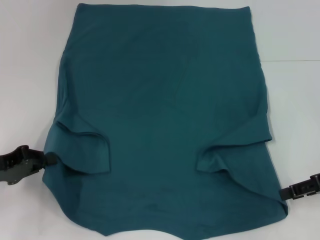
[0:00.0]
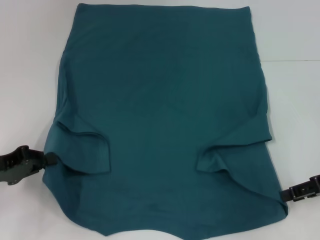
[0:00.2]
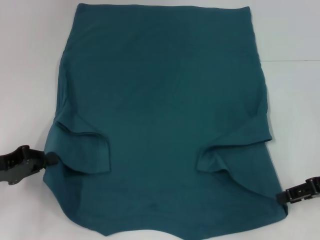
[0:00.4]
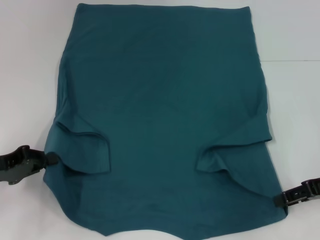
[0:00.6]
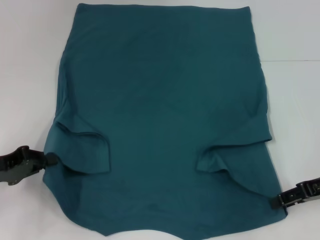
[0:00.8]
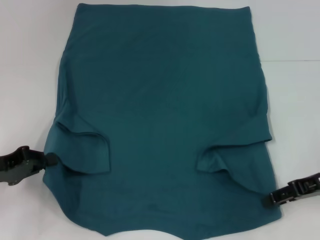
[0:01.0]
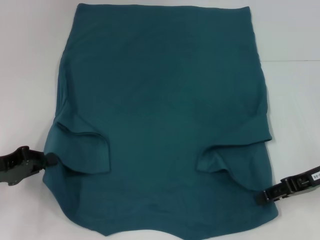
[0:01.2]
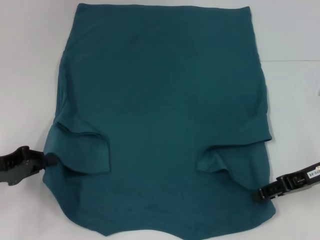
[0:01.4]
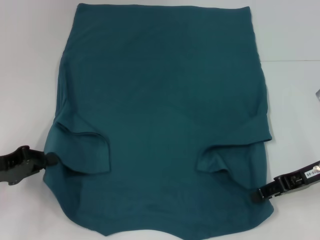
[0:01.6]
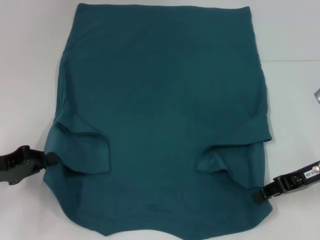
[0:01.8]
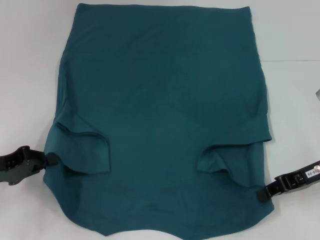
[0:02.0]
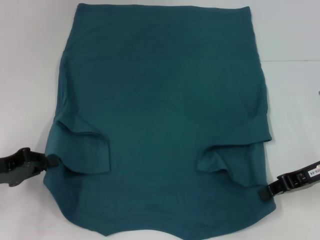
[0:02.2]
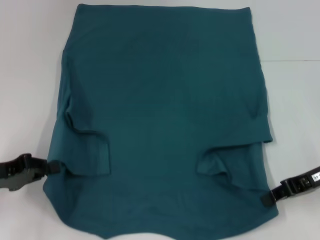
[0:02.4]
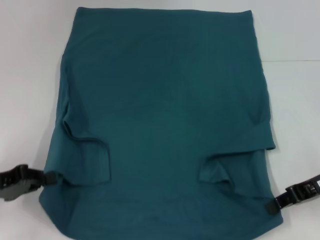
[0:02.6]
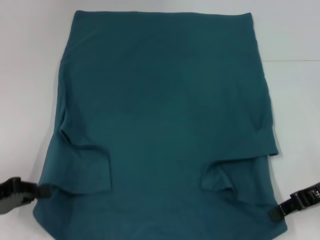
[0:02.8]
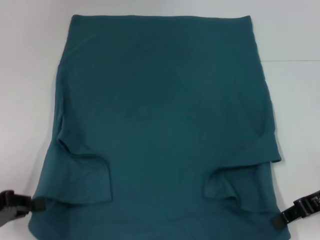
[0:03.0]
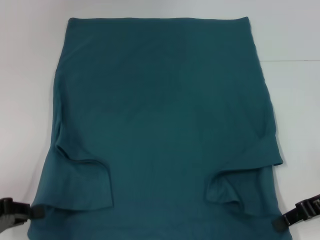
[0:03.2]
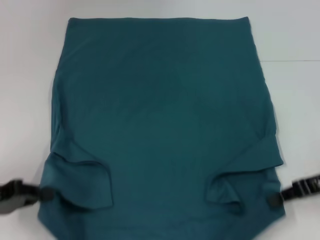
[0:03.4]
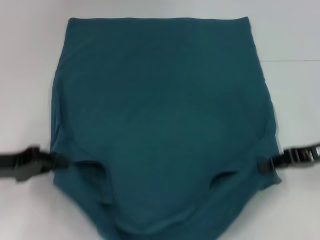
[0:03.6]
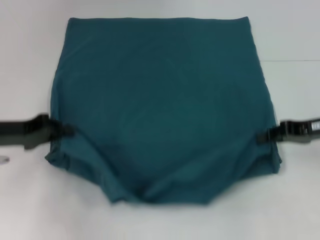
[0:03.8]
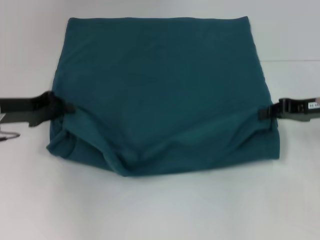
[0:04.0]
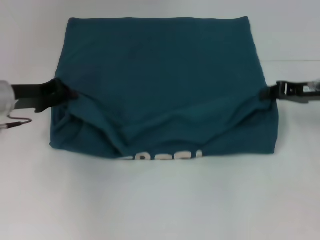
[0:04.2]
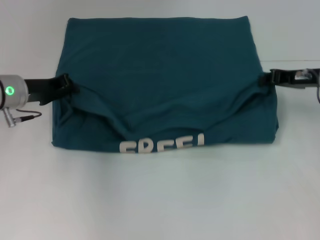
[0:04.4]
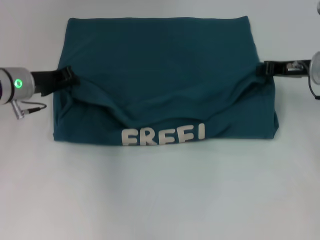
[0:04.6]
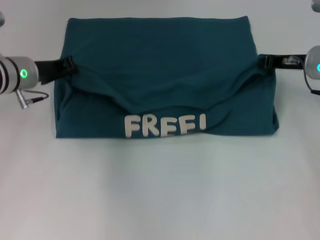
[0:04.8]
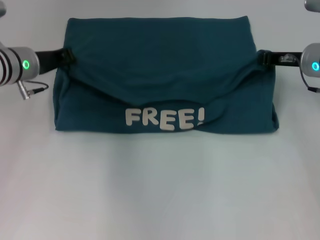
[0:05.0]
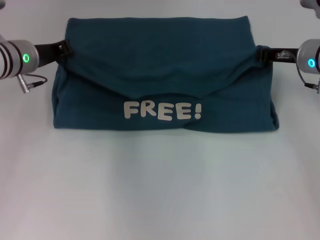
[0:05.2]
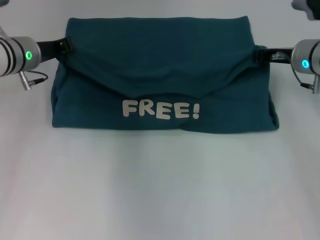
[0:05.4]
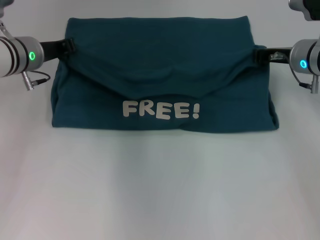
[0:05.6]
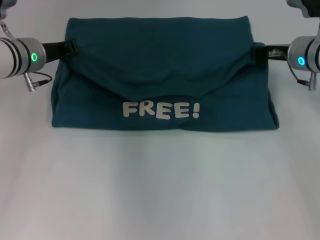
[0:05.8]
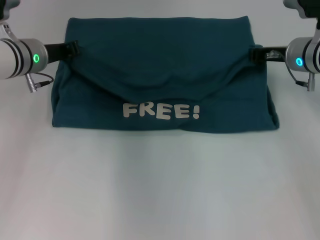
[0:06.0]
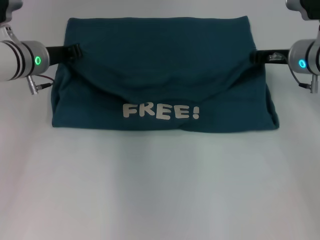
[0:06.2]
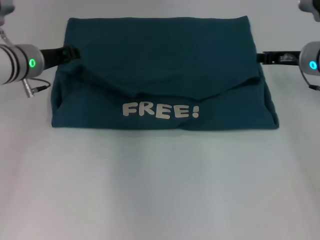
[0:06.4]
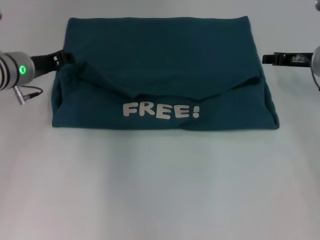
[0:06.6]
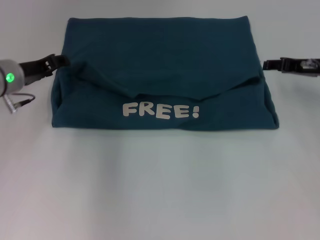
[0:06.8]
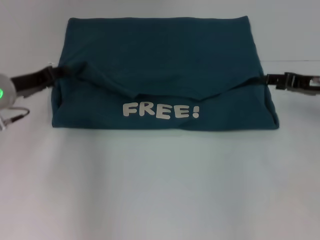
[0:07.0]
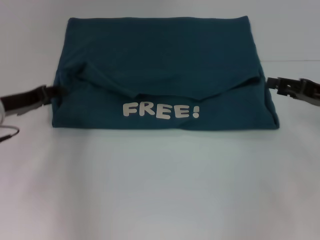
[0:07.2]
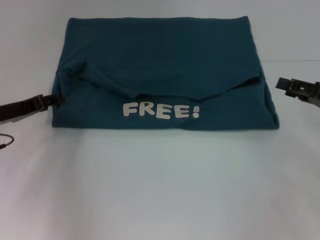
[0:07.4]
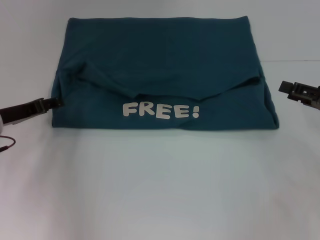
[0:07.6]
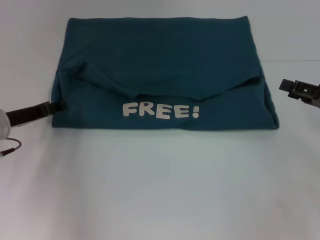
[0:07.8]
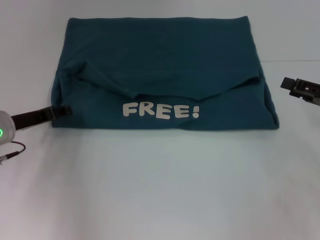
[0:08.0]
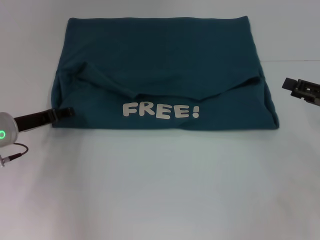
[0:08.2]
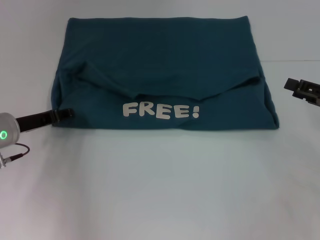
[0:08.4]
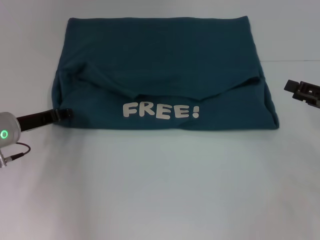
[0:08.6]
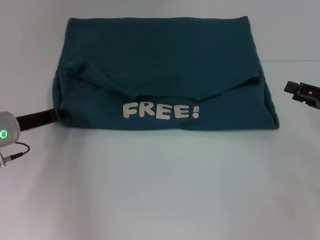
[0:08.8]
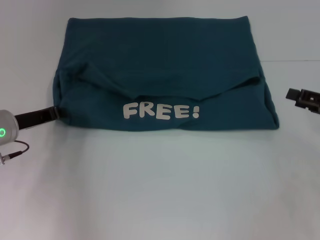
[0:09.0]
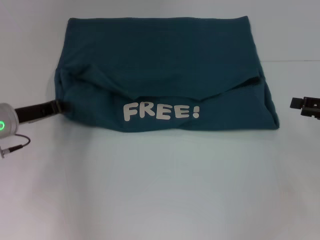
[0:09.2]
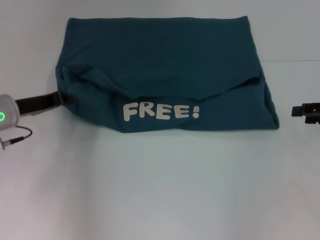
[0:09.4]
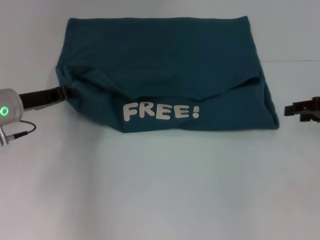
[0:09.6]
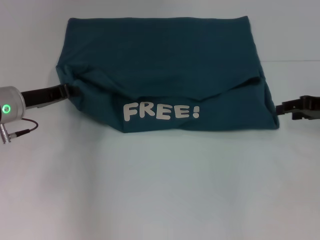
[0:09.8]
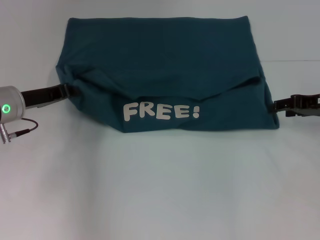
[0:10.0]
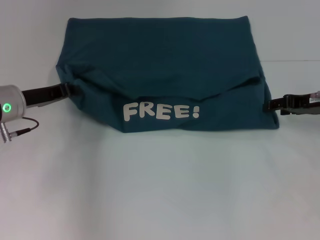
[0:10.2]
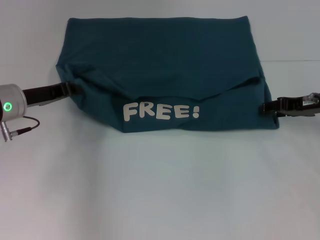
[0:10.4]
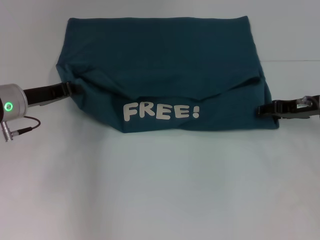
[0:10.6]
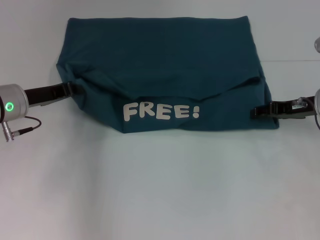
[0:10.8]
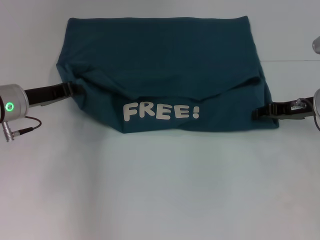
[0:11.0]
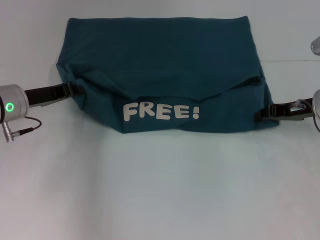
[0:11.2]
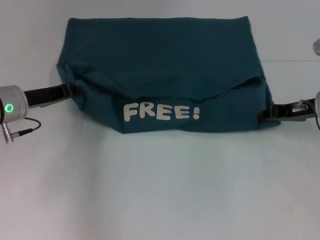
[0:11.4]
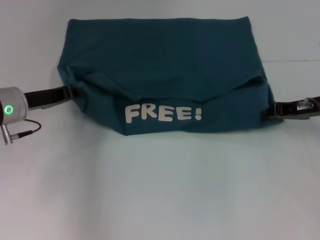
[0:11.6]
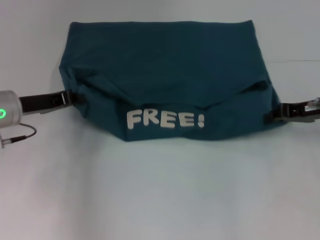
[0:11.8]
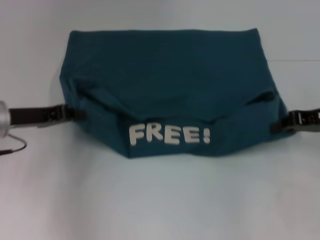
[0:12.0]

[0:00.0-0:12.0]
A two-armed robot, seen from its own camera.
Step, 0.0 to 2.4 s: Grab the bottom right corner with your right hand.
Step, 2.6 to 6.6 s: Fold the clothes to the left.
Step, 2.6 to 6.6 s: Fold the clothes to the right.
0.0 to 1.6 s: The right gripper shifts roughly 5 cm to the left.
1.6 to 3.0 s: The left gripper travels backward by roughly 5 cm. The right gripper closes up.
3.0 to 4.4 s: The right gripper travels forward by about 10 cm. Meanwhile the left gripper shifts roughly 20 cm forward and to the right.
4.4 to 6.0 s: The left gripper moves roughly 5 cm, while the right gripper shifts roughly 5 cm to the left.
6.0 to 7.6 s: The left gripper heads backward, to the left and downward, covering approximately 15 cm, and opens; the right gripper shifts approximately 20 cm backward and to the right, and opens its fingers.
7.6 to 9.0 s: The left gripper closes up.
9.0 to 10.4 s: The right gripper goes roughly 10 cm forward and to the left.
10.4 to 12.0 s: The right gripper closes.

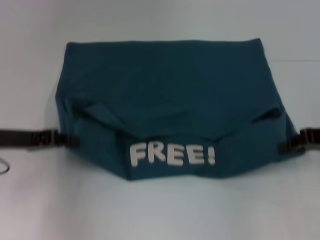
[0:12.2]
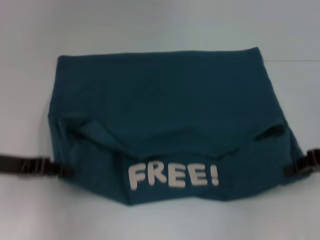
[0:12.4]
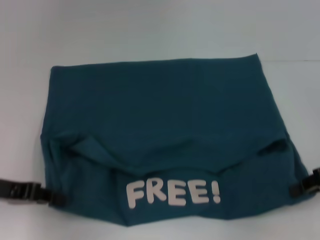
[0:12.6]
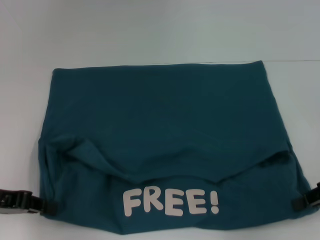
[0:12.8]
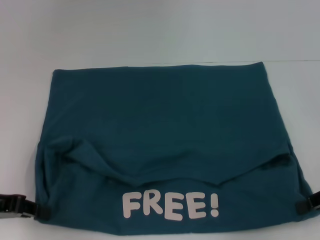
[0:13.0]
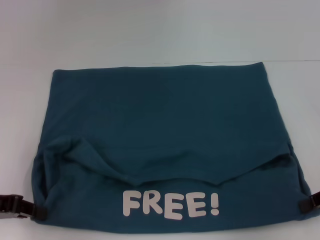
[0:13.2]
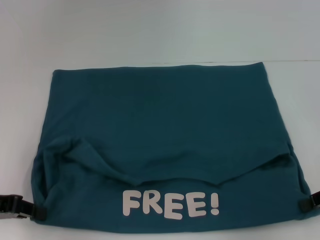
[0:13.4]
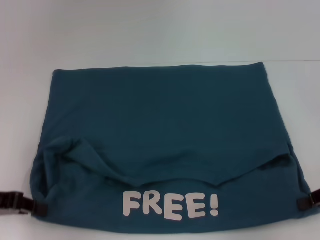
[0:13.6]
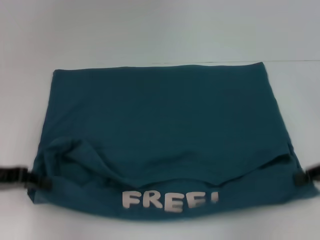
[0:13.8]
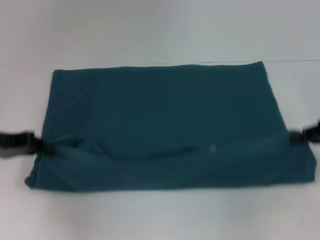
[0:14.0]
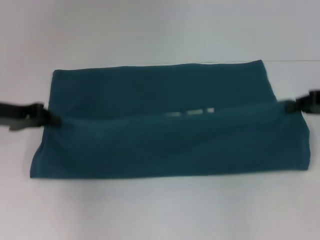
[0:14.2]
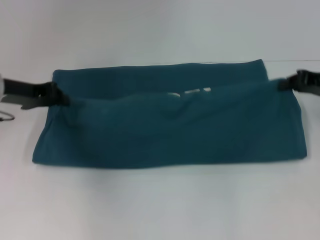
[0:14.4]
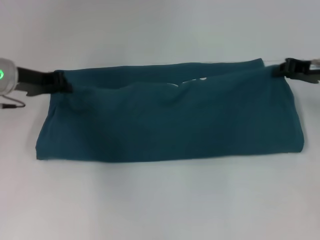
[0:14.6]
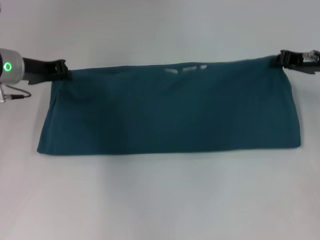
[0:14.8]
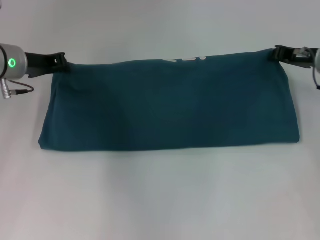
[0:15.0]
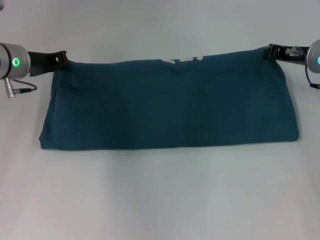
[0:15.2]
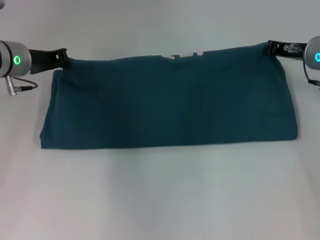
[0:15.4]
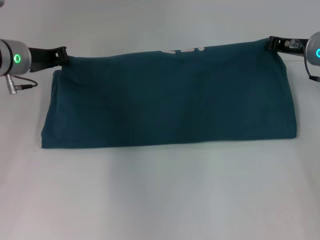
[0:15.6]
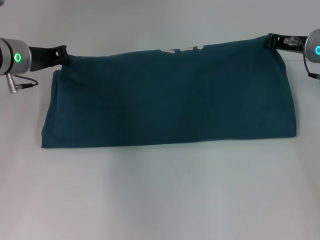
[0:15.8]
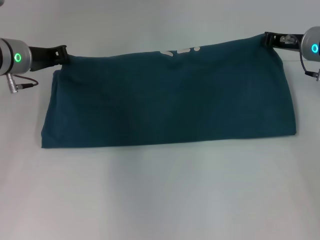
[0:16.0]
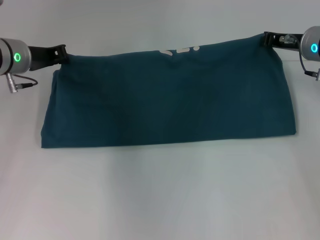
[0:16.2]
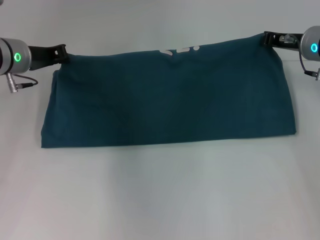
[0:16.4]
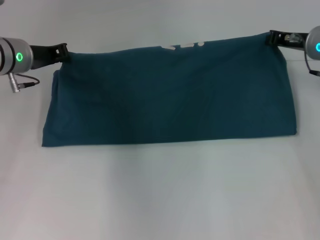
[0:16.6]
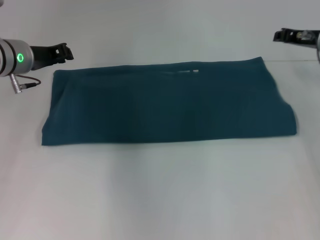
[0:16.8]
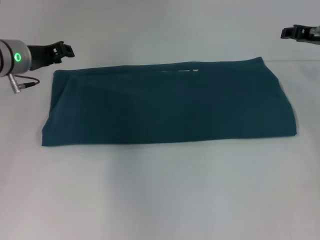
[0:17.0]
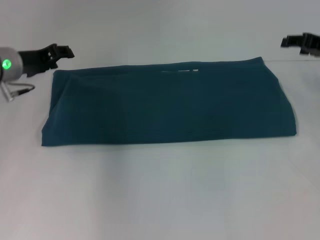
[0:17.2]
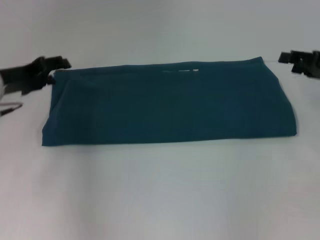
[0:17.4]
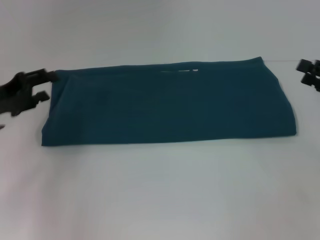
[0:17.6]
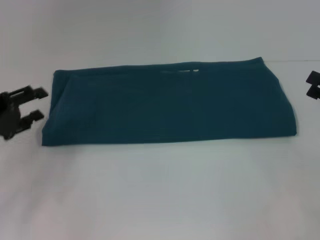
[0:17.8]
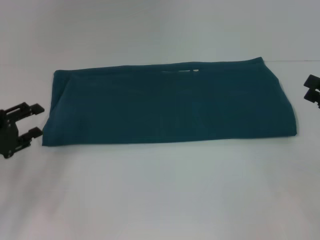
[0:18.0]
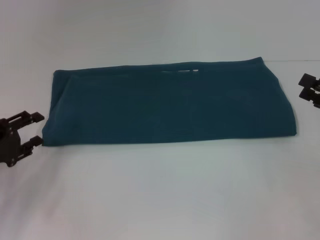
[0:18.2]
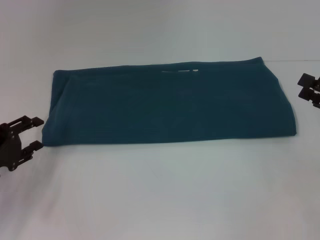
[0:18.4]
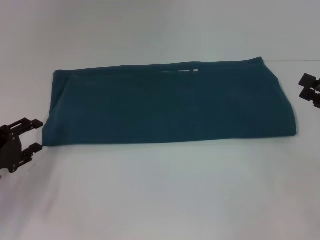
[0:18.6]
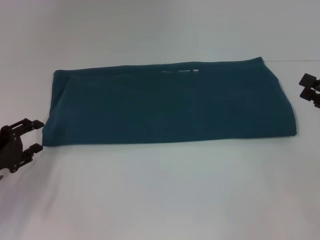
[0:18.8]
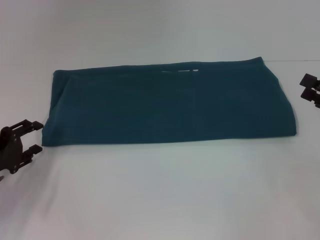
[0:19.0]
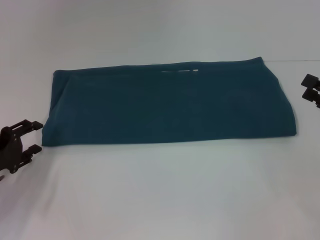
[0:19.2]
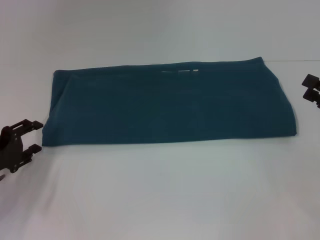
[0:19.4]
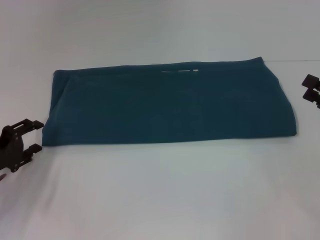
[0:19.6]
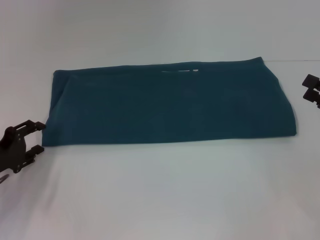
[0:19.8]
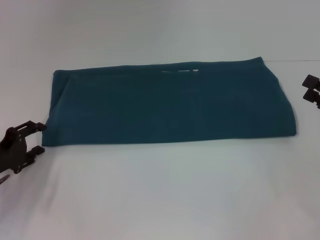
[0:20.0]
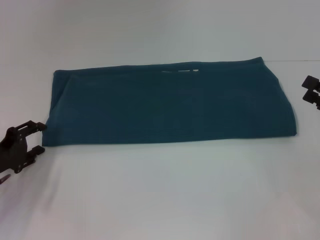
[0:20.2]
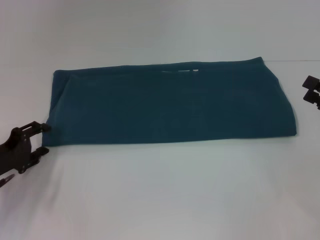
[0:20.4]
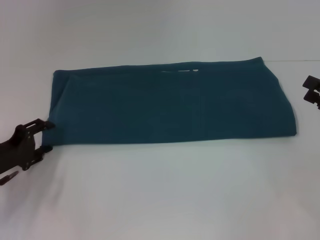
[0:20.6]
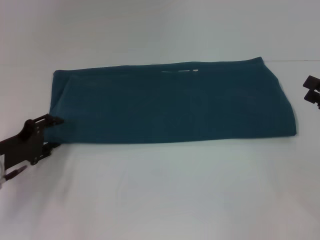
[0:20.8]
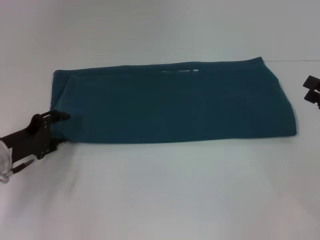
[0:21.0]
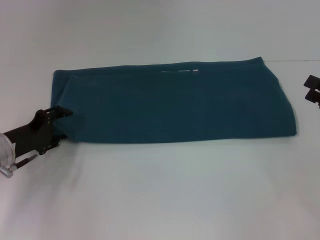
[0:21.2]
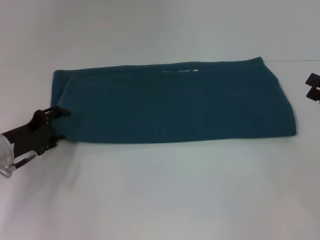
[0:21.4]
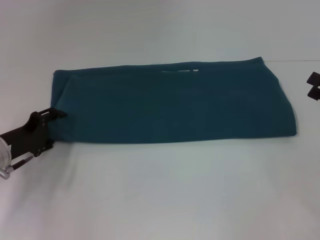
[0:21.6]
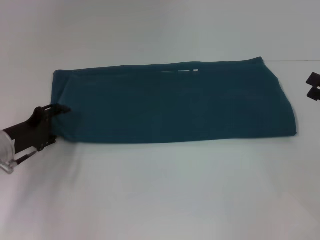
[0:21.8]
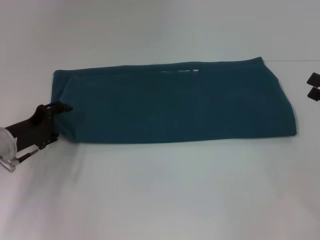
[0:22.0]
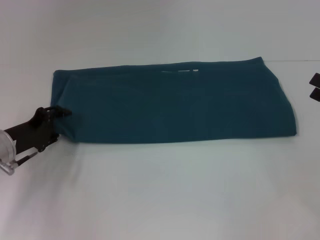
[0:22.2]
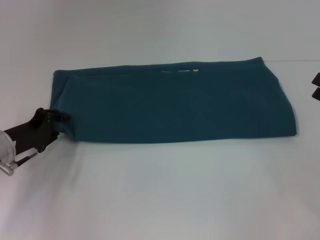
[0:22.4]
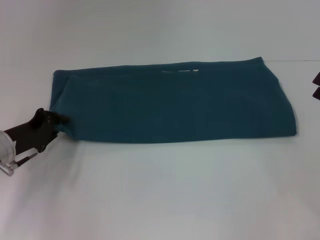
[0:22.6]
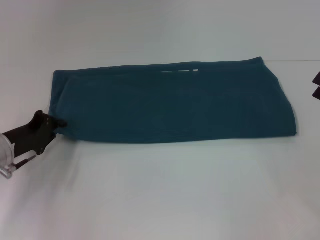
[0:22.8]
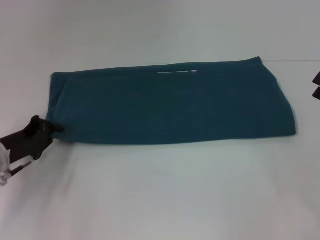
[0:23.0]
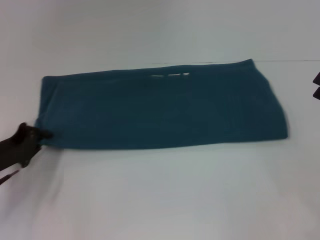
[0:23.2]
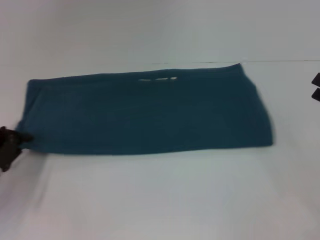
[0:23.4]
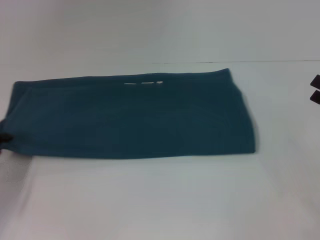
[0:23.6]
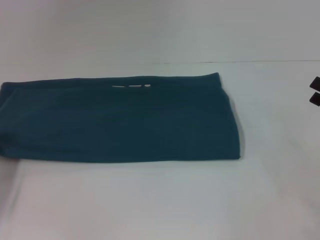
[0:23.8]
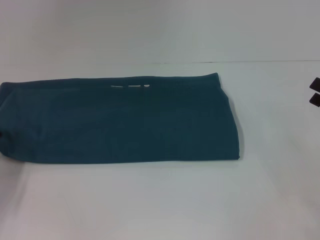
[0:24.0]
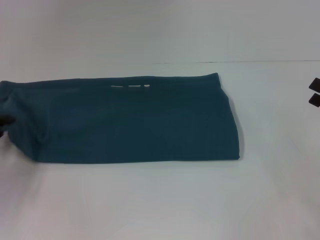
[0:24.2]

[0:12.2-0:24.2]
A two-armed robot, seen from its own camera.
Step, 13.2 to 17.2 s: Fold the clothes to the right.
12.2 to 13.8 s: The left gripper changes place by roughly 5 cm.
13.8 to 15.2 s: The right gripper moves forward and to the left, approximately 15 cm, while the left gripper travels forward and to the right by some 20 cm.
15.2 to 16.6 s: The grippers move only a little.
16.6 to 18.2 s: The right gripper shifts roughly 20 cm backward and to the right, and opens up; the left gripper shifts about 20 cm backward, downward and to the left, and opens up.
18.2 to 19.8 s: The grippers make only small movements.
19.8 to 21.2 s: The left gripper shifts by roughly 5 cm.
21.2 to 22.6 s: Both grippers stay put.
22.6 to 24.2 s: The left gripper travels to the left by roughly 10 cm, and closes up.
